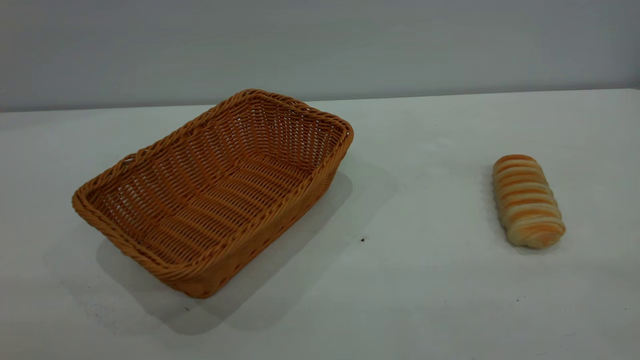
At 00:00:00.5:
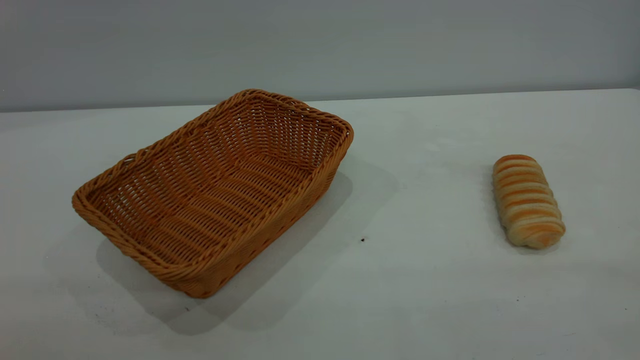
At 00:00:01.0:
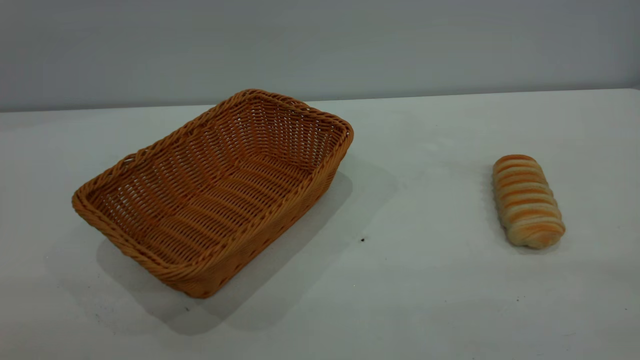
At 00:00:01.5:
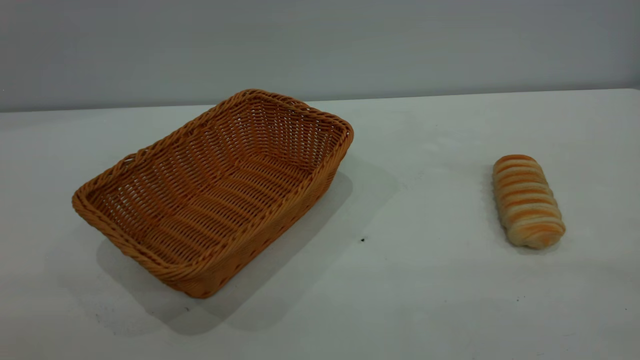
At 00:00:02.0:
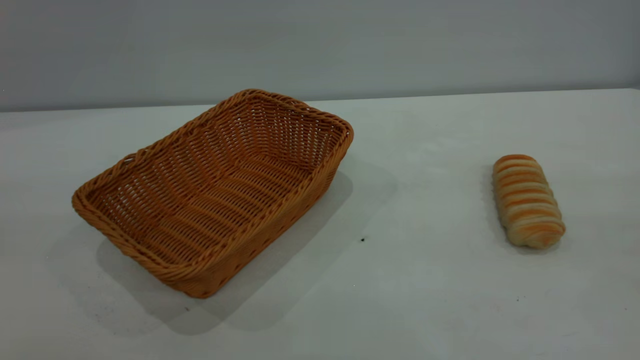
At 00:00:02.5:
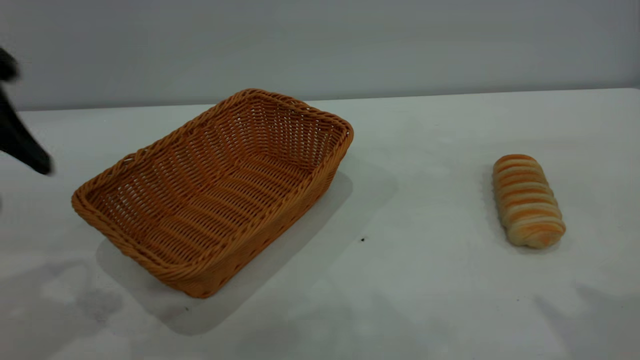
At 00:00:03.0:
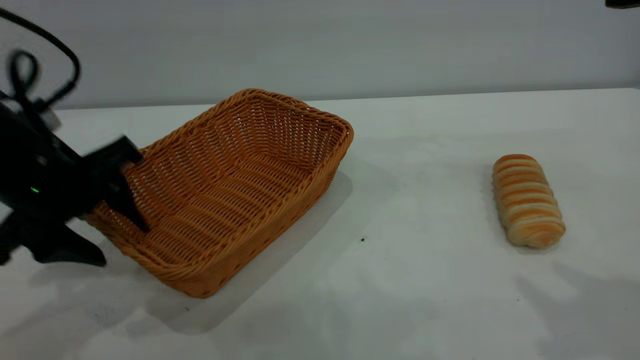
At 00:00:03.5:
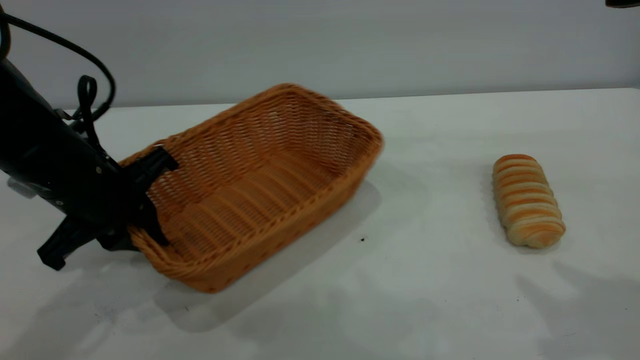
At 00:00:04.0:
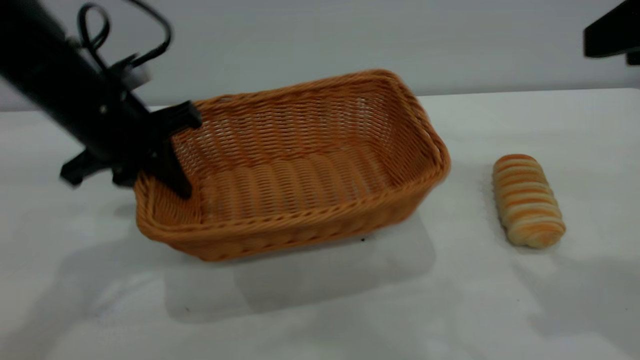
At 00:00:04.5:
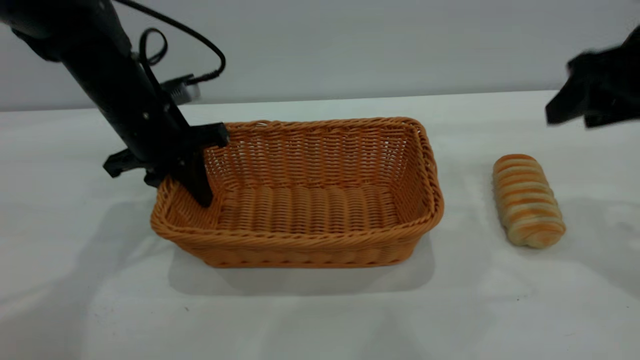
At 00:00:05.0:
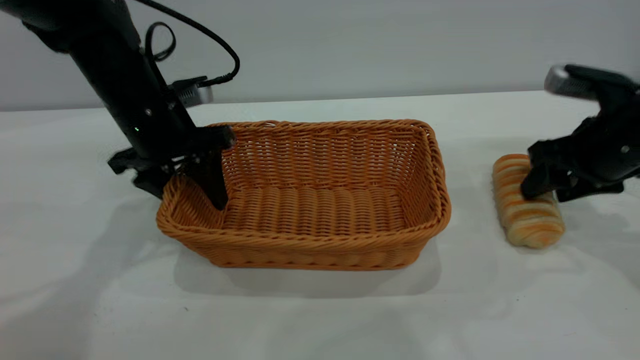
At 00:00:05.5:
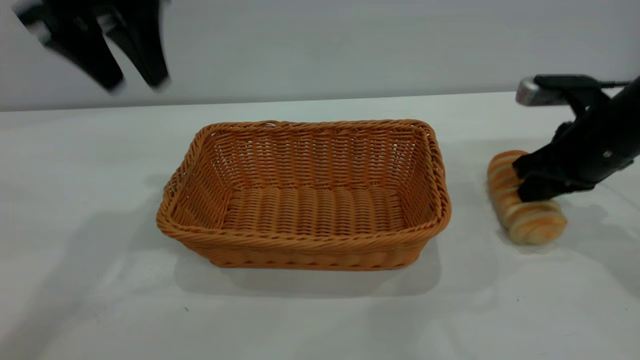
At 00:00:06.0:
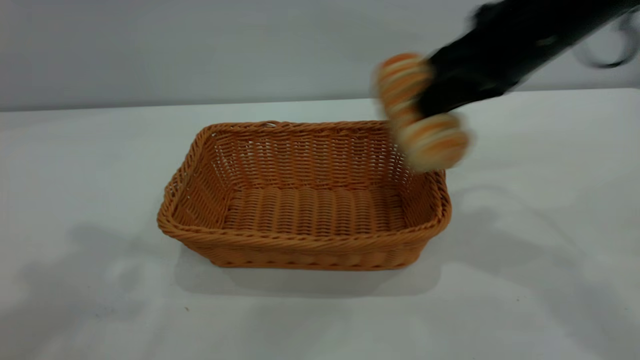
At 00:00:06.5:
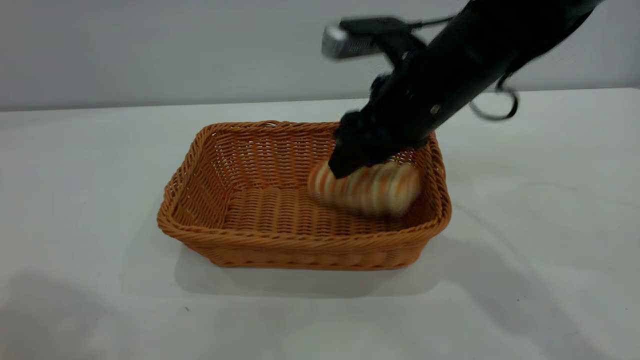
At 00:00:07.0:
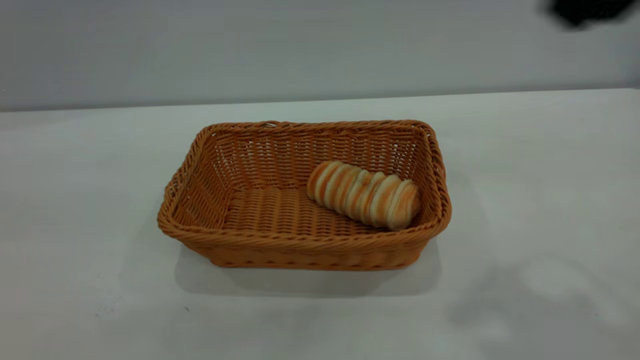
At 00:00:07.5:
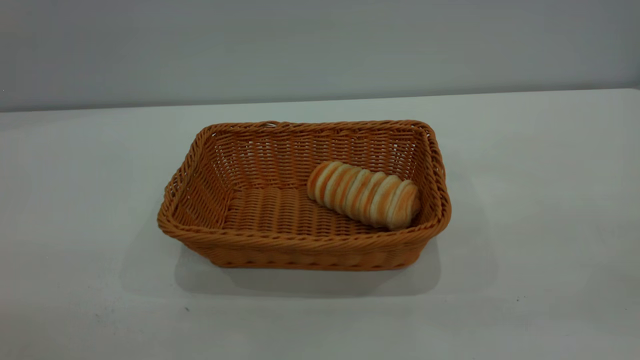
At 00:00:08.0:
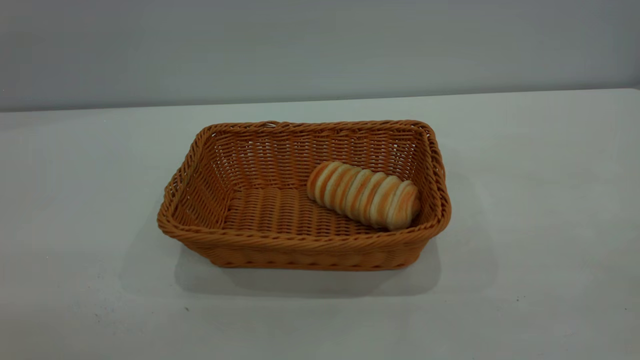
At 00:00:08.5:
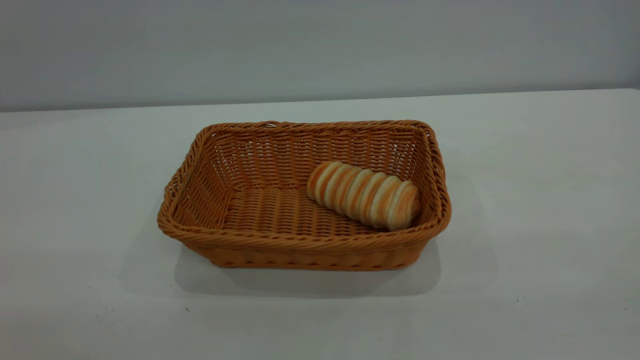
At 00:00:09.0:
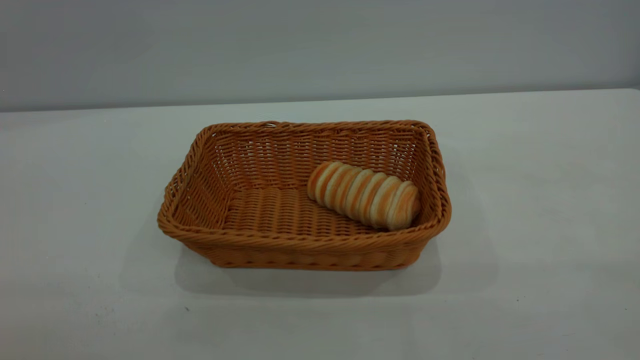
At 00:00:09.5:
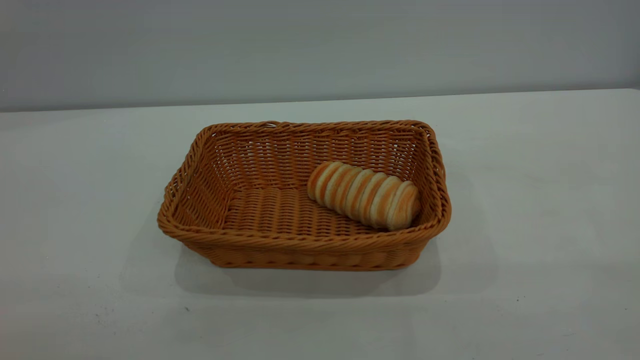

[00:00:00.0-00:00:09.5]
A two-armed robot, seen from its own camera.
Task of the whole recording: One hand grasps the yellow basket and places it in the middle of the table, while the other hand picks up the long bread and puts it into the yellow basket.
Step, 00:00:00.0 to 00:00:05.0: Move the basket to the center of view.
Step, 00:00:06.0 to 00:00:06.5: place the bread into the basket.
00:00:02.0 to 00:00:04.0: The right gripper is displaced forward and downward by roughly 15 cm; the left gripper travels forward and downward by roughly 30 cm, and closes its fingers.
00:00:04.0 to 00:00:05.5: The left gripper shifts some 15 cm upward, and opens; the right gripper shifts roughly 20 cm downward and forward, and closes its fingers.
00:00:05.5 to 00:00:07.5: The left gripper shifts about 35 cm backward, while the right gripper is displaced backward and upward by approximately 35 cm, and opens its fingers.
